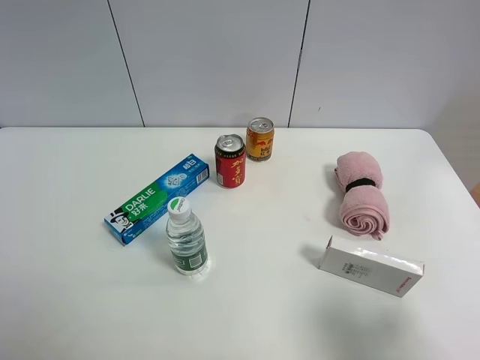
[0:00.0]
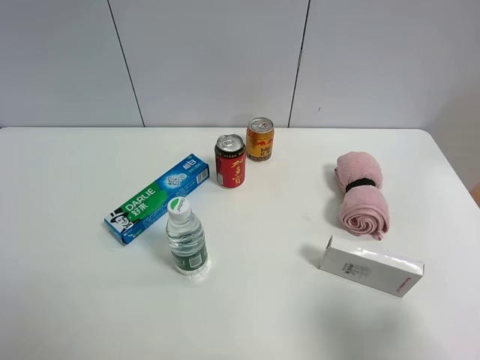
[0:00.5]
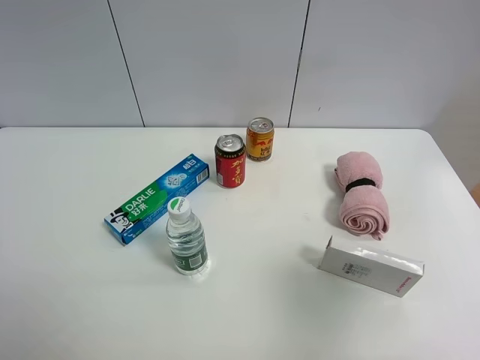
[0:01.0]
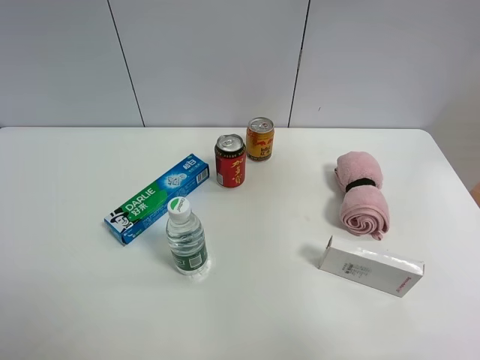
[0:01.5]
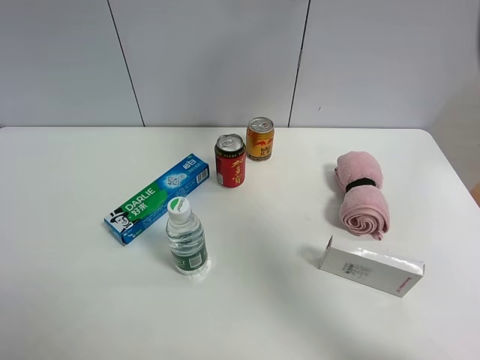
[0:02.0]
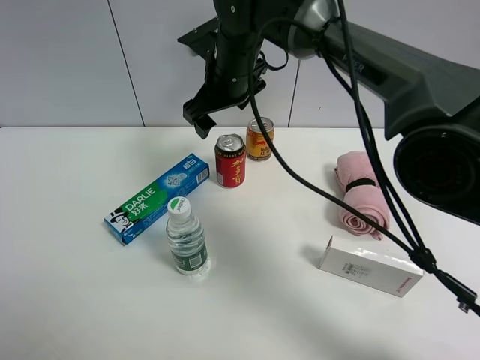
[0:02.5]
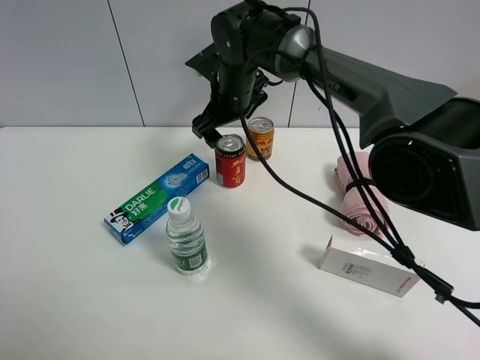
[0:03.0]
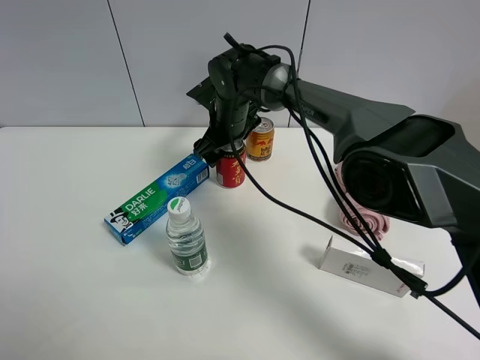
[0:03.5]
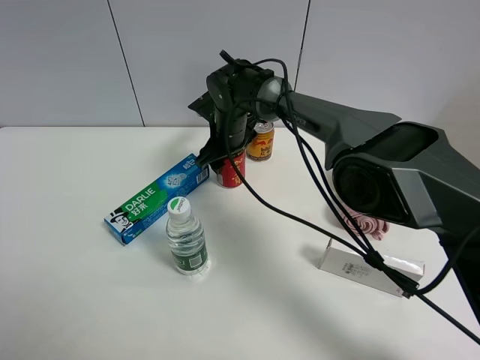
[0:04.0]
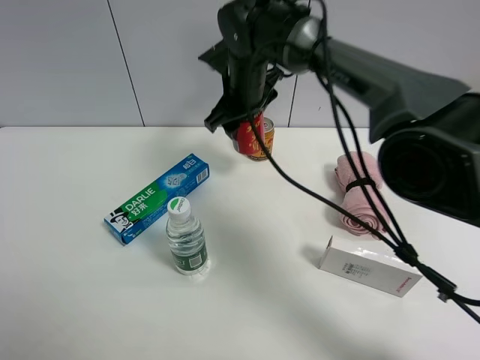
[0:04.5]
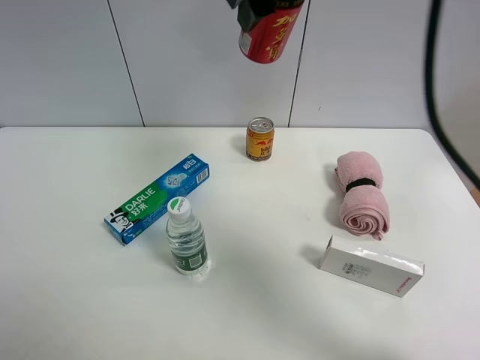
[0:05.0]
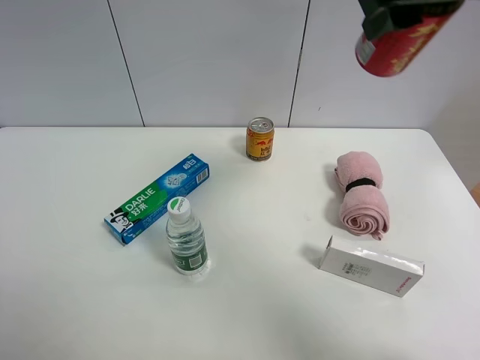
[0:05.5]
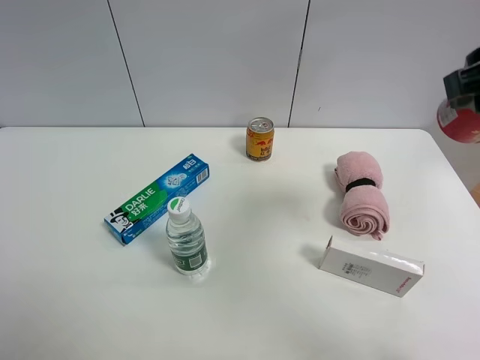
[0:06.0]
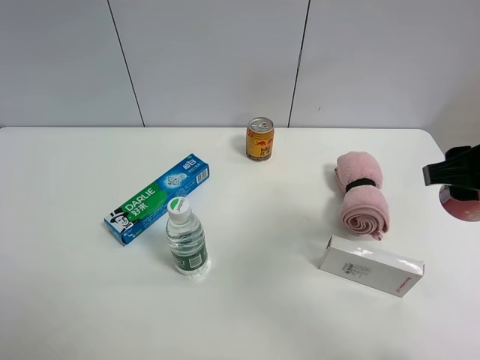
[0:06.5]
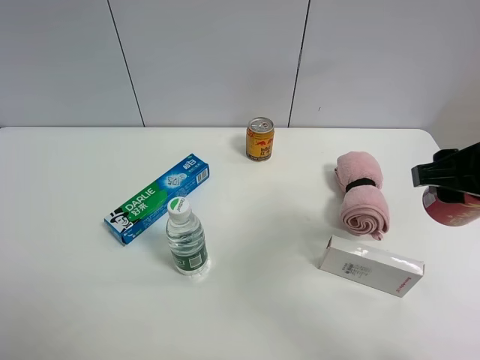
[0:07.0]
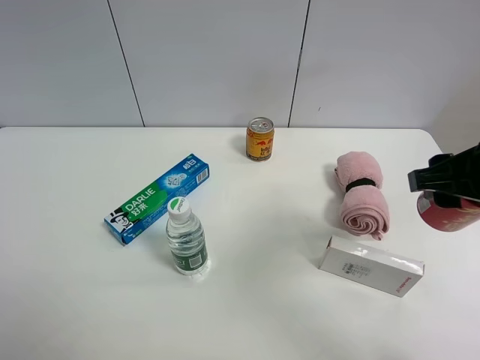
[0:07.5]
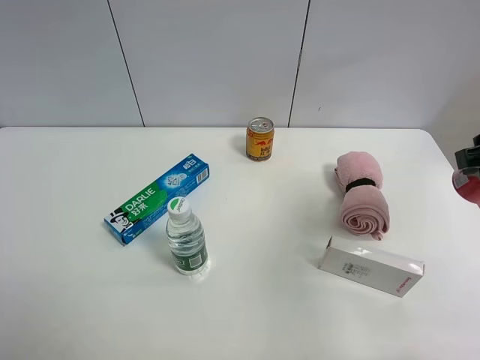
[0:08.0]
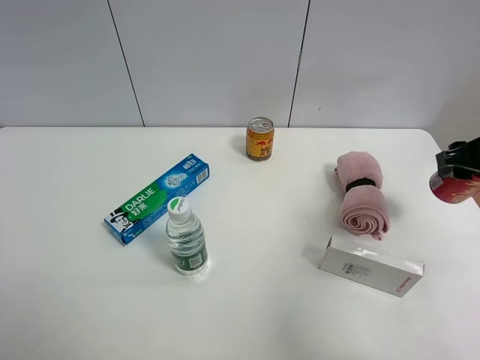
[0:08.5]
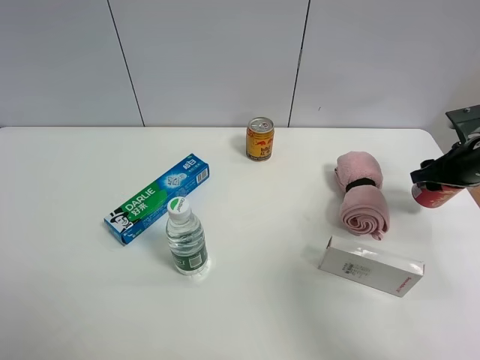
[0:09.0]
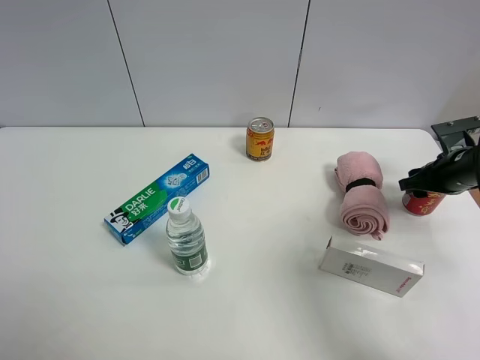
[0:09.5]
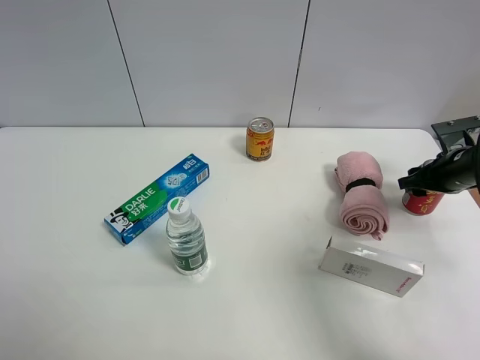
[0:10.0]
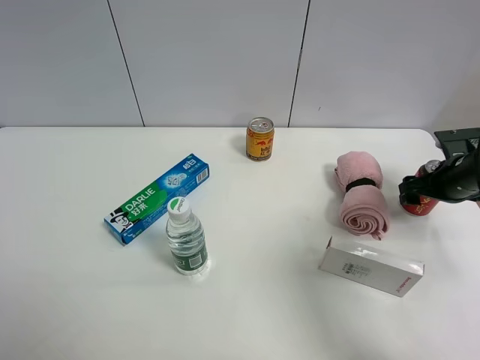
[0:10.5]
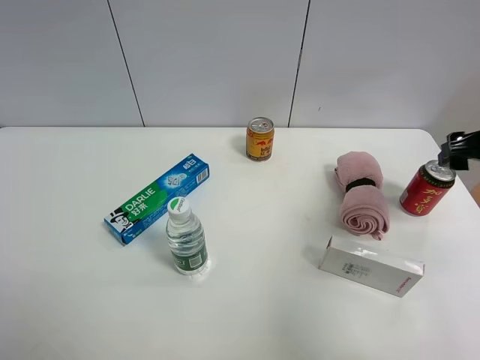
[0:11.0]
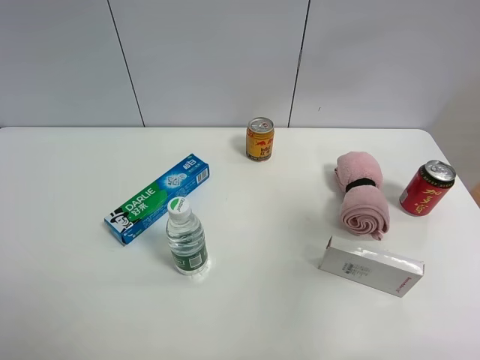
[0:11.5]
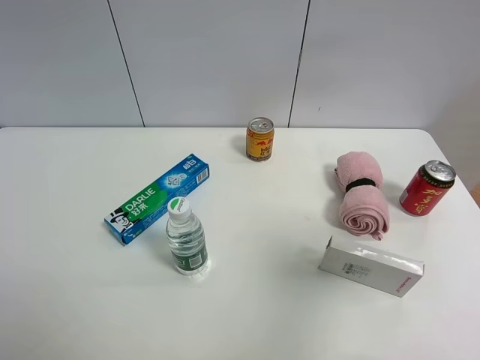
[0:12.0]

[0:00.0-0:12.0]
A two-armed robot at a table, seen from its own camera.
Task of the whole recording: the gripper move the object.
Step, 0:00.0 to 0:04.0: Grasp the Jia Duo Bao with the right gripper.
Step, 0:04.5 to 0:10.0: Place the Jia Duo Bao on the table with the right gripper.
0:00.0 to 0:02.0: The right gripper goes some 40 cm forward, upward and to the left.
0:02.0 to 0:04.0: The right gripper travels downward and to the left by some 35 cm, and closes.
0:04.0 to 0:06.0: The right gripper is displaced backward, to the right and upward by roughly 40 cm.
0:06.0 to 0:08.0: The right gripper shifts roughly 10 cm downward and to the right.
0:08.0 to 0:10.0: The right gripper is displaced downward and forward by approximately 25 cm.
0:10.0 to 0:12.0: The right gripper moves backward and upward, some 40 cm, and opens.

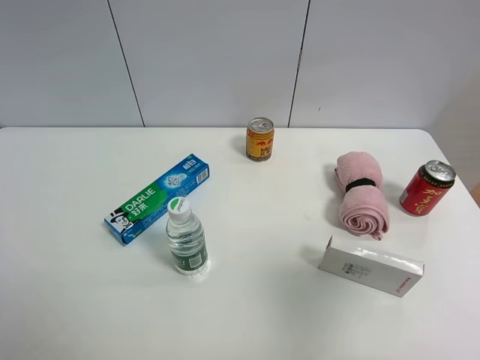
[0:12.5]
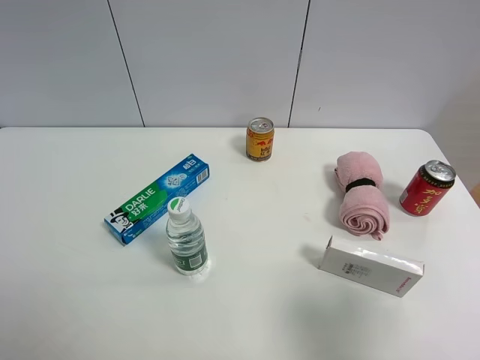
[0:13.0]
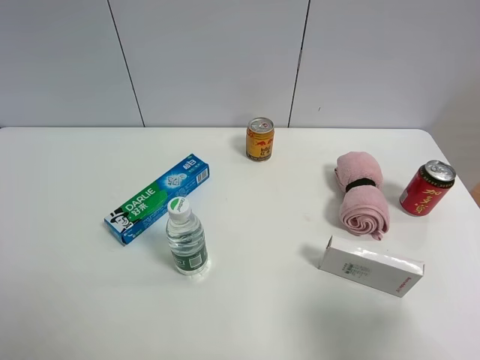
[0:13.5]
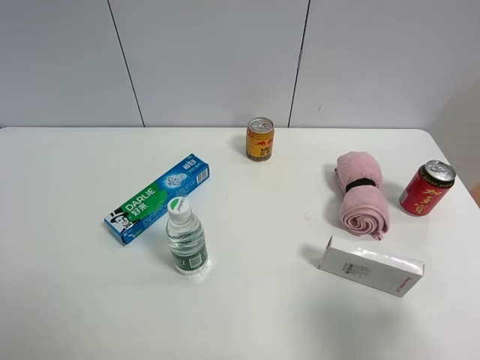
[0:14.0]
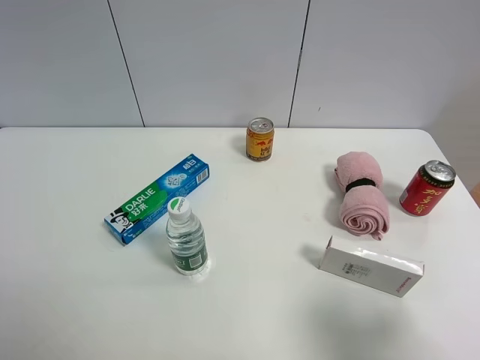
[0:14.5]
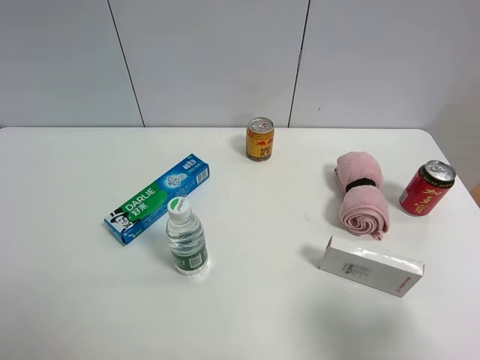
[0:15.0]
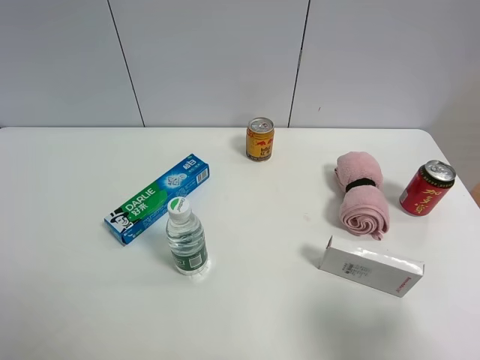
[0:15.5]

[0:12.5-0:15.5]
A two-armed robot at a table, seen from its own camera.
Task of the whole recording: the gripper move the object.
0:12.5 to 0:14.0: The right gripper shifts roughly 10 cm downward.

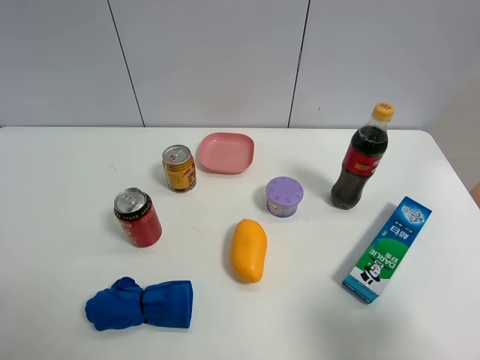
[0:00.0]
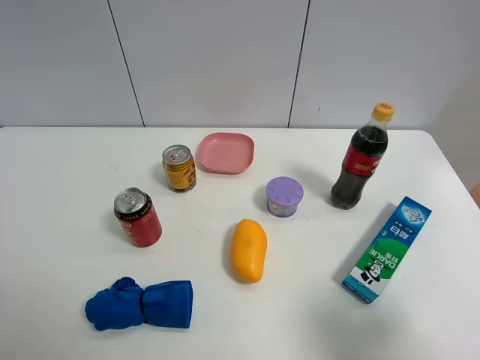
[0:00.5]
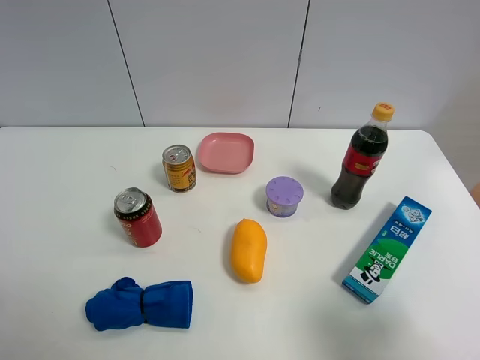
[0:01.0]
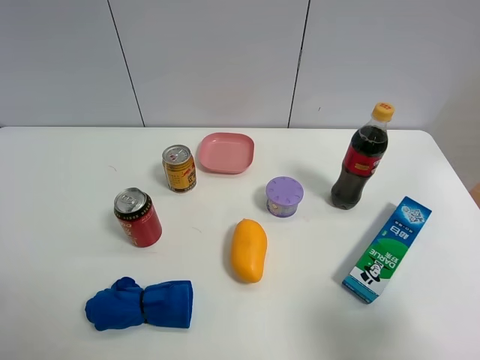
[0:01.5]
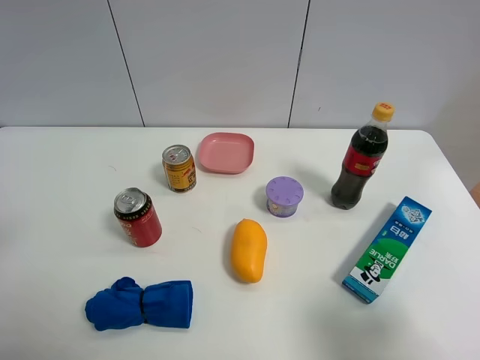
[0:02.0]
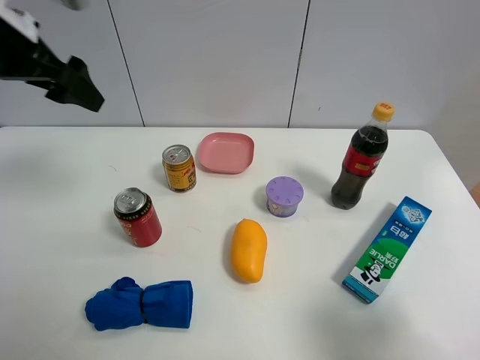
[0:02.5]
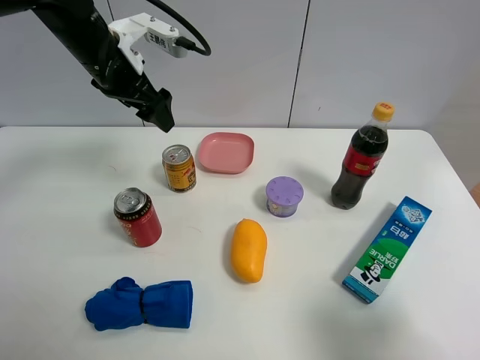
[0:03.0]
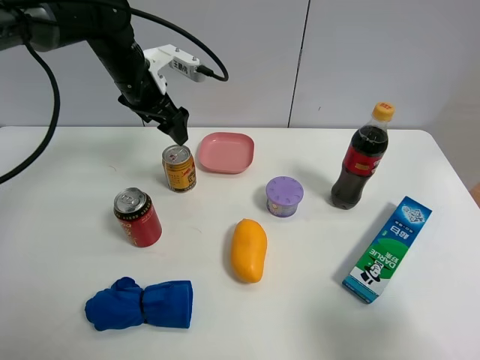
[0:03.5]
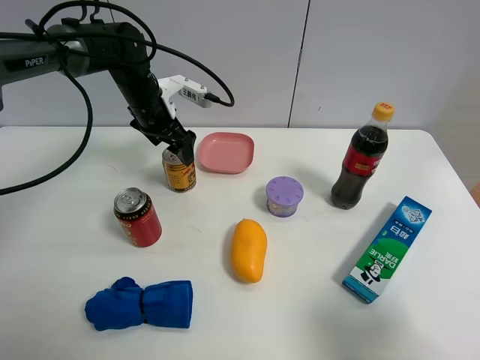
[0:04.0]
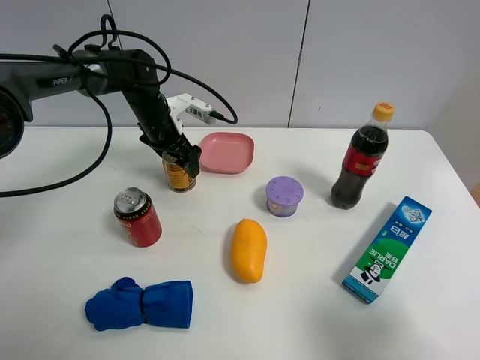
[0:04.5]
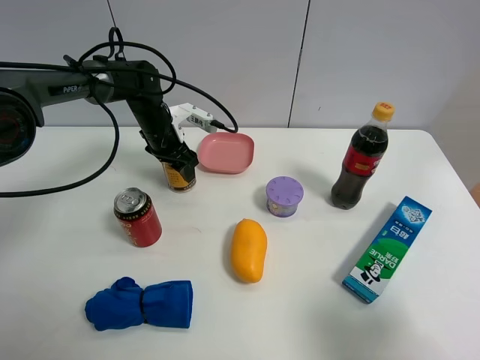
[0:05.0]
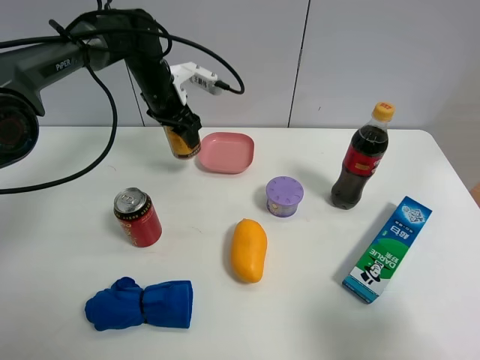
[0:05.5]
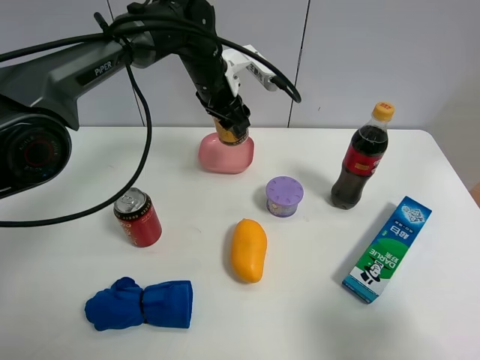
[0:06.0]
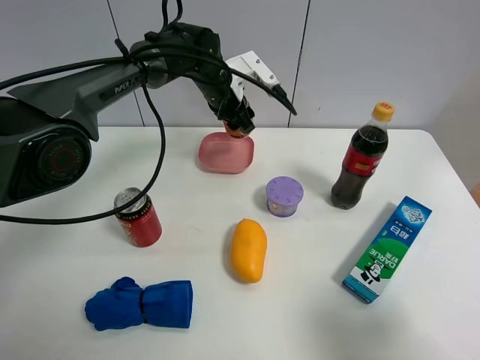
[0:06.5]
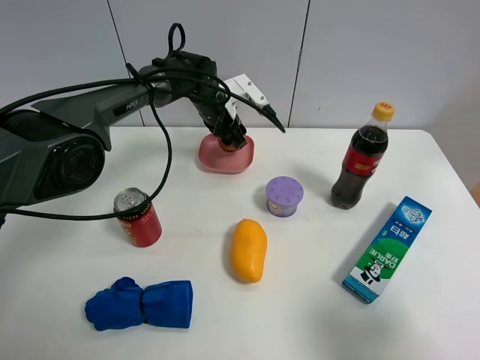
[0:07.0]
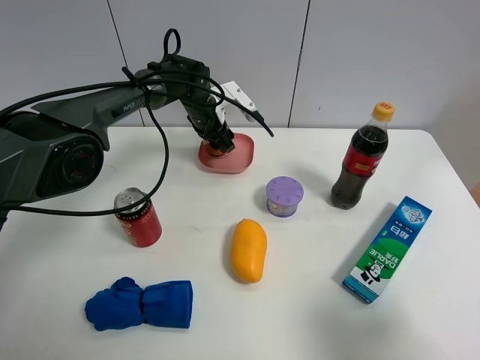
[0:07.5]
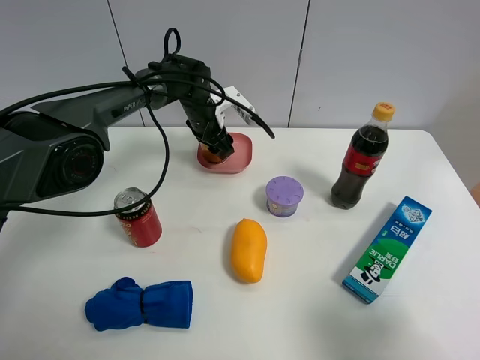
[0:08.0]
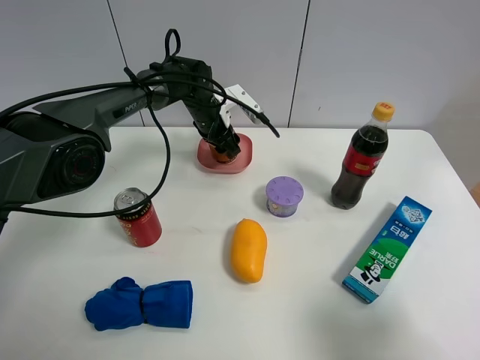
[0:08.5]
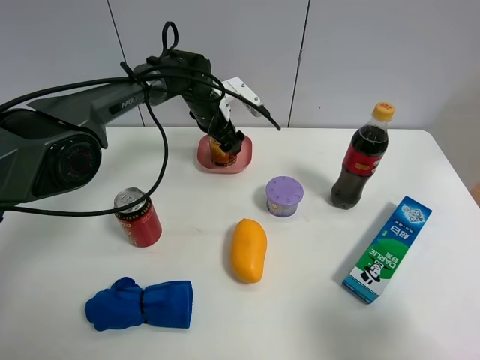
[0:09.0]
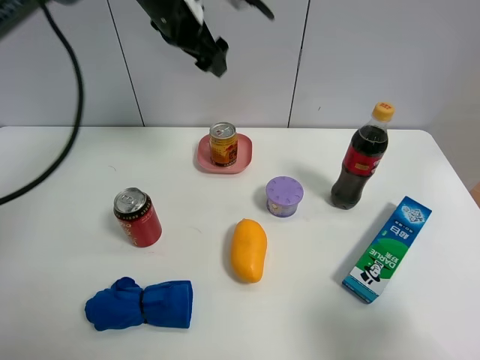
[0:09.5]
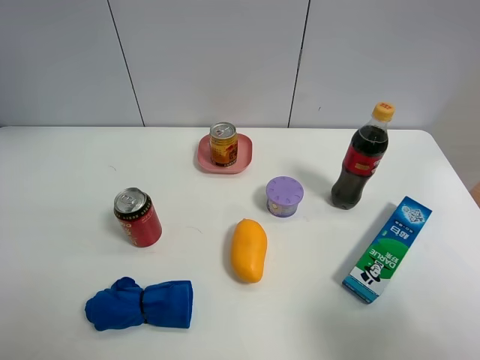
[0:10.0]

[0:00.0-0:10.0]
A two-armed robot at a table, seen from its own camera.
Task of the whole recording: the gripper move the object.
Step, 0:00.0 to 0:05.0: Grasp the red bull with the left gripper.
Step, 0:05.5 to 0:09.0: Place the red bull into the pink plate with the left gripper.
0:02.0 to 0:04.0: The left gripper is displaced forward, downward and to the right by roughly 40 cm.
0:04.0 to 0:06.0: The left gripper heads to the right and upward, covering some 10 cm, and closes up.
0:06.0 to 0:08.0: The left gripper travels downward by about 10 cm.
0:08.0 to 0:10.0: The left gripper heads upward and to the left, covering roughly 40 cm, and opens its fingers.
